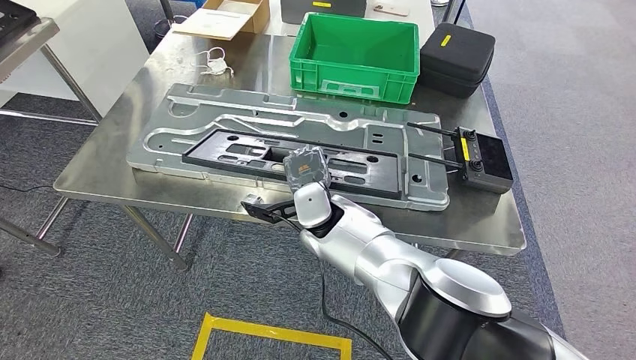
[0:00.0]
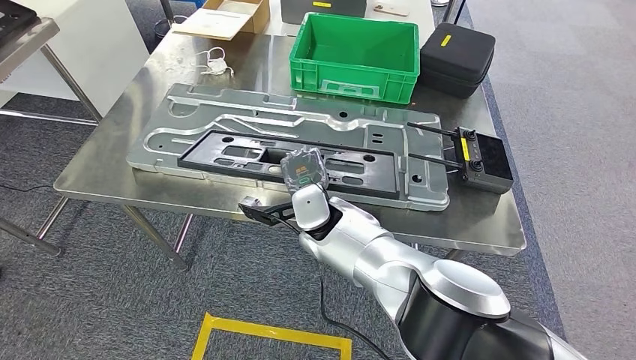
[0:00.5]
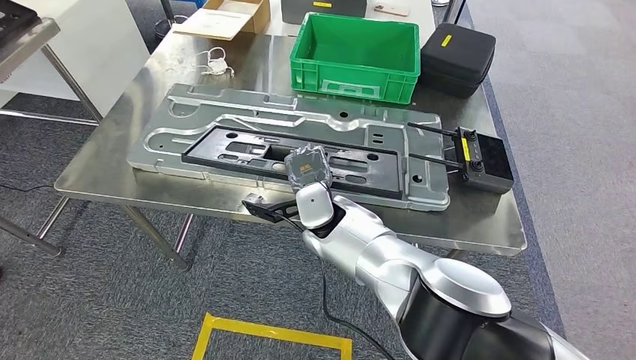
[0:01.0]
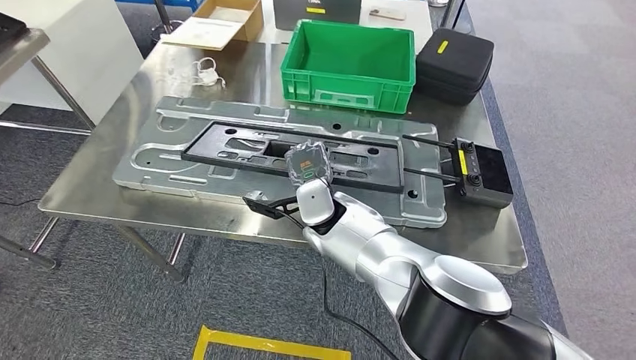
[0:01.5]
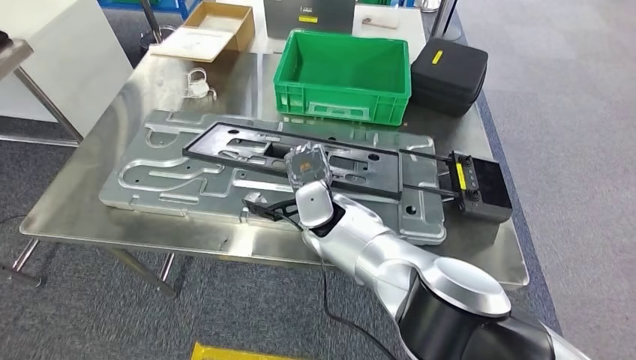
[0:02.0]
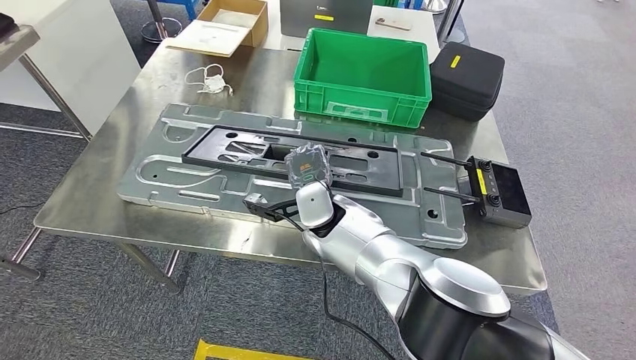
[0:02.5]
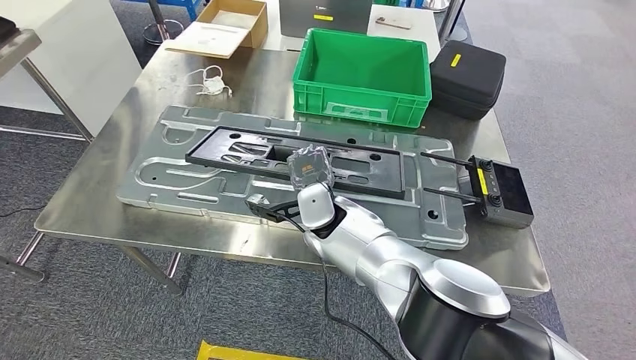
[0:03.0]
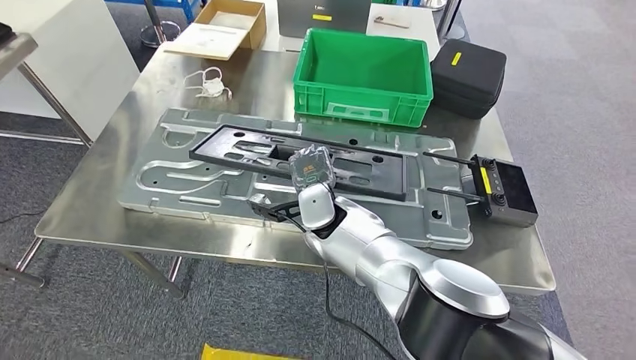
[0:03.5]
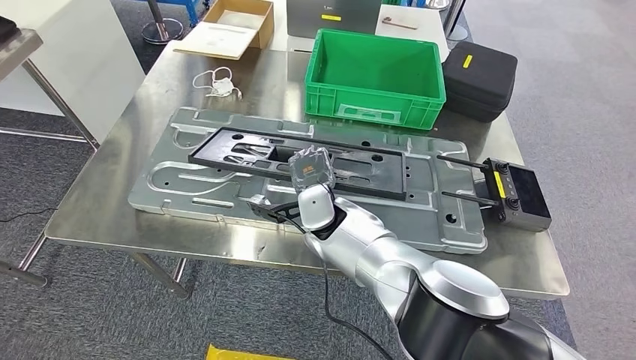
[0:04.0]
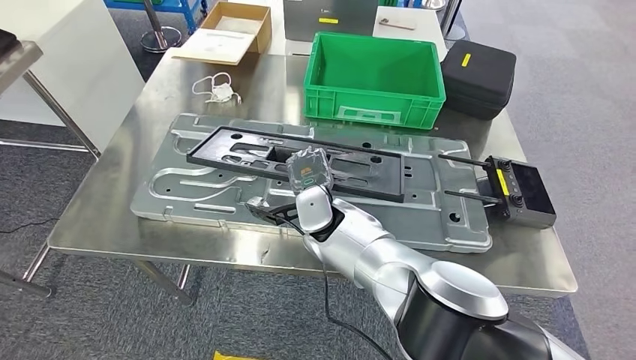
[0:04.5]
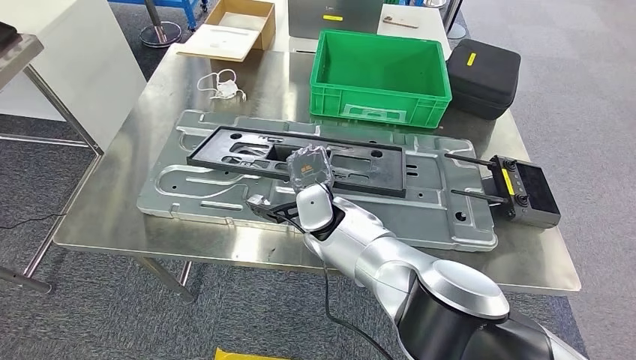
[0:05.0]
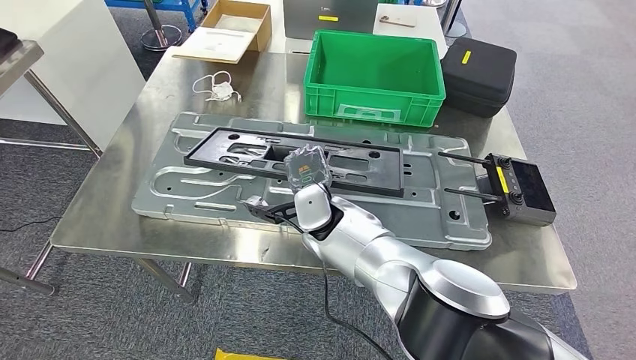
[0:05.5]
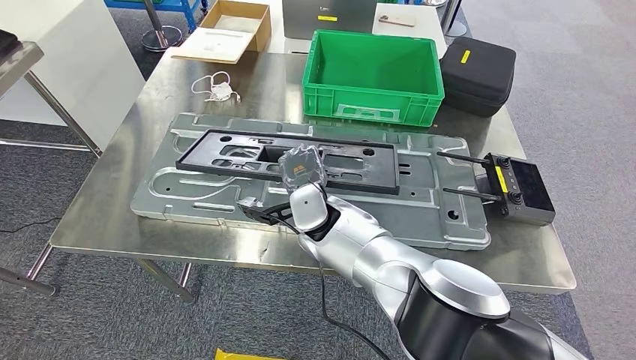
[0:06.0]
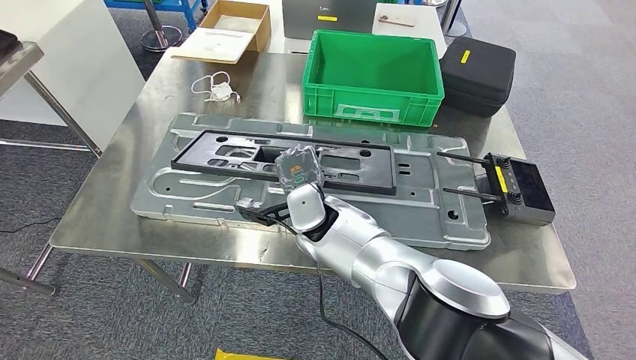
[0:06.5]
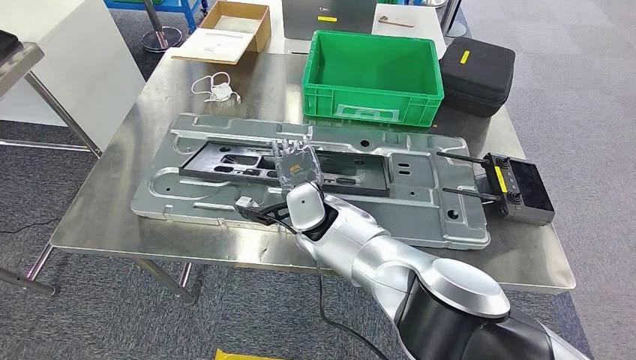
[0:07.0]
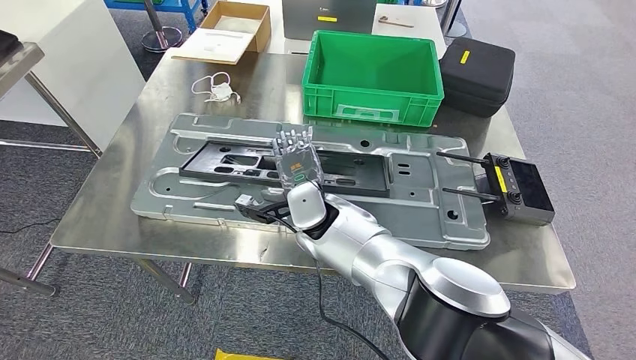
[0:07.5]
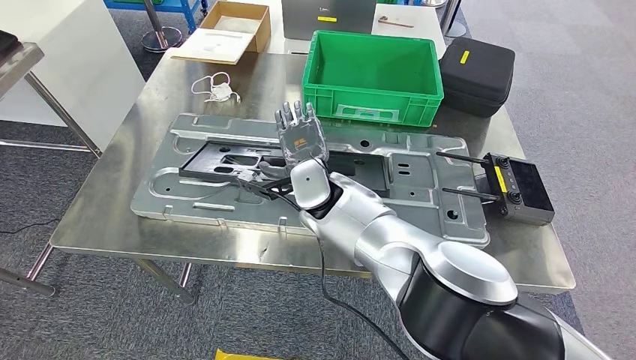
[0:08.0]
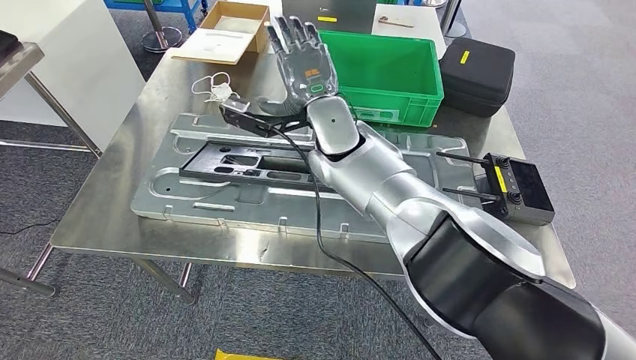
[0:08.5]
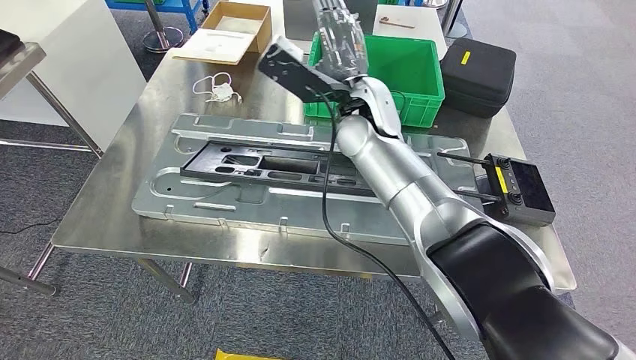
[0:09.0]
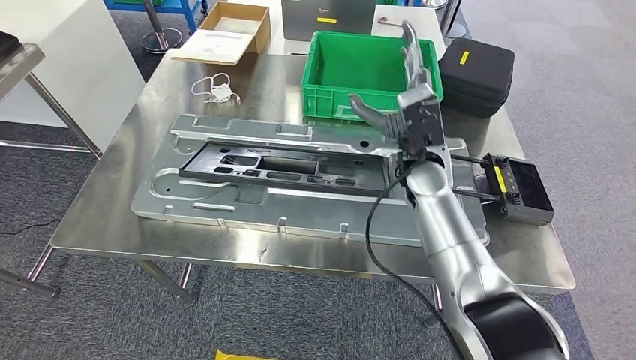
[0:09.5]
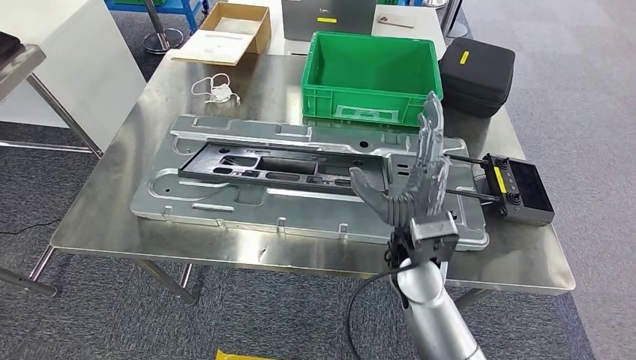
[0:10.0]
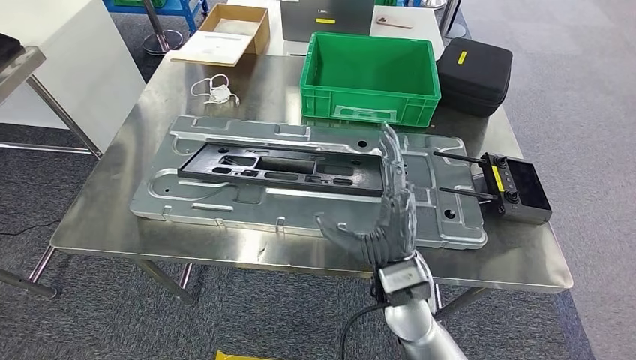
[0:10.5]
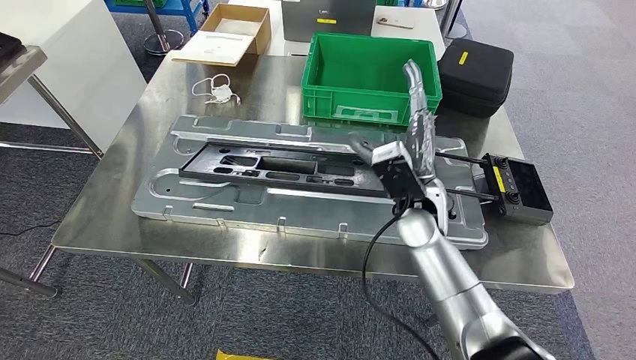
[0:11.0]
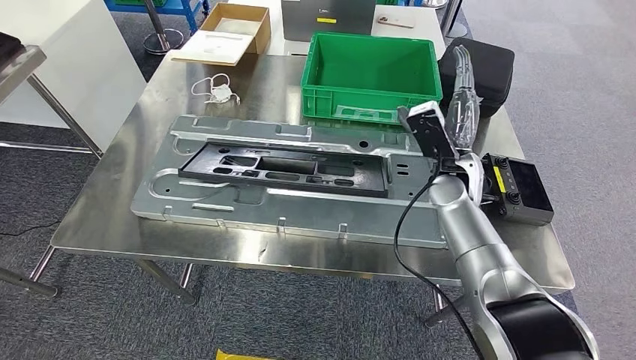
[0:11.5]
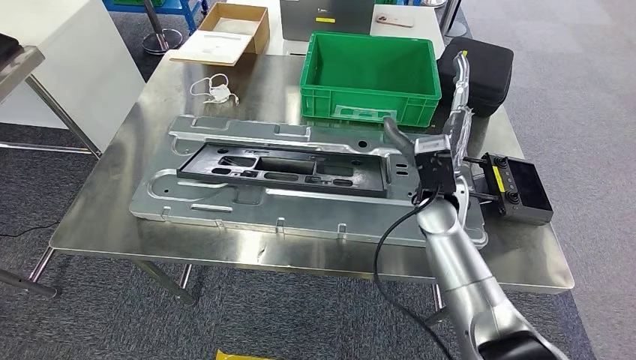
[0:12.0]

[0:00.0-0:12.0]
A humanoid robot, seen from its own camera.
0:06.0 to 0:08.0: There are only small adjustments of the hands.
0:08.0 to 0:10.0: The right hand travels to the right and backward by about 20 cm.
0:10.0 to 0:12.0: The right hand travels forward and to the right by some 10 cm.

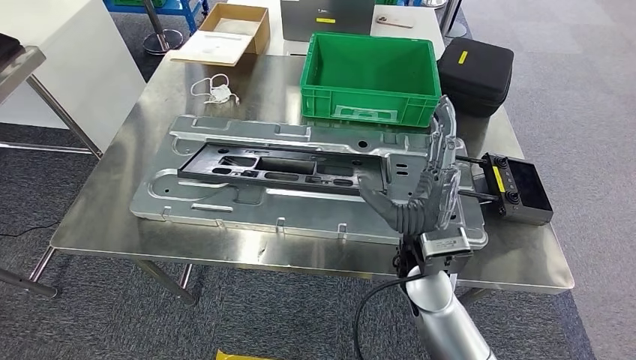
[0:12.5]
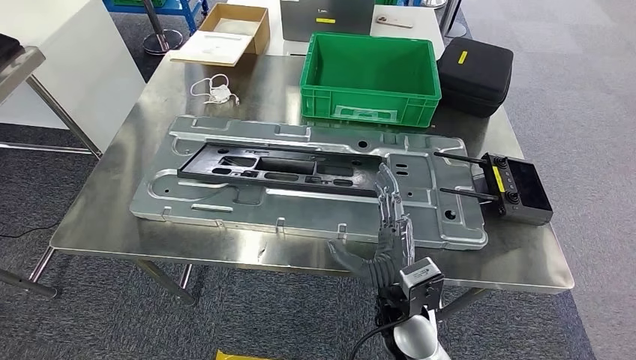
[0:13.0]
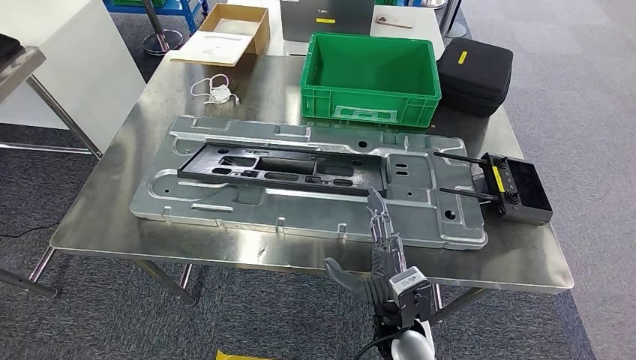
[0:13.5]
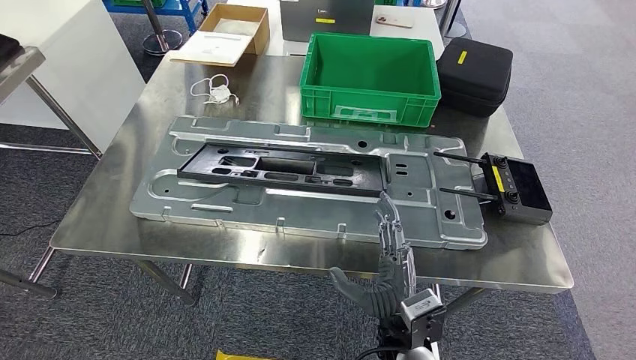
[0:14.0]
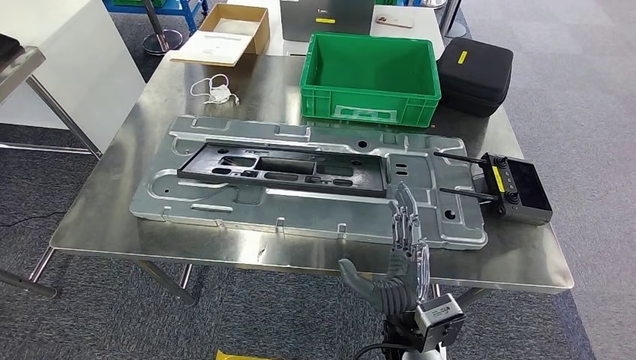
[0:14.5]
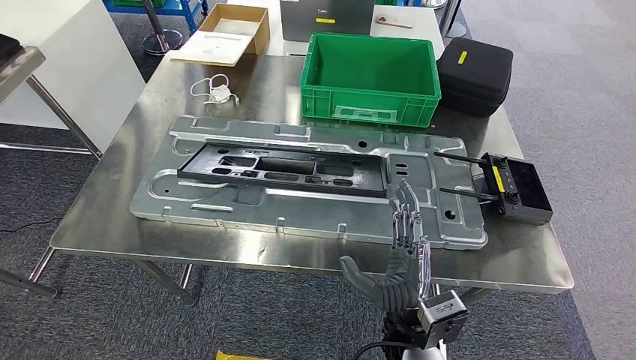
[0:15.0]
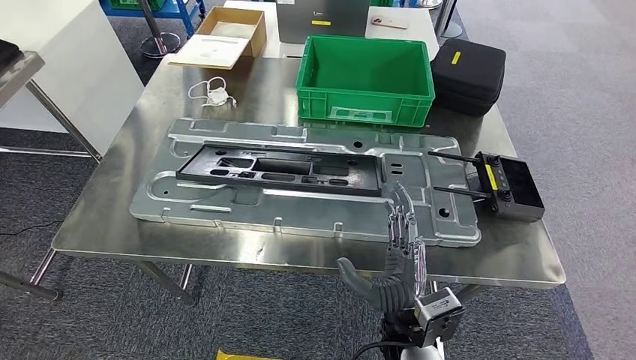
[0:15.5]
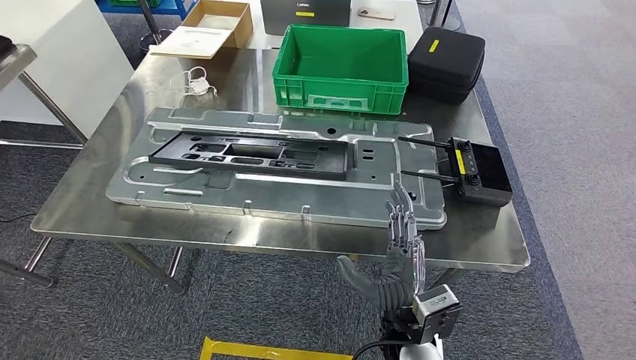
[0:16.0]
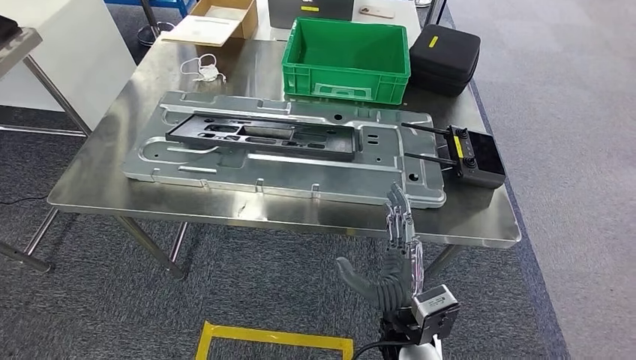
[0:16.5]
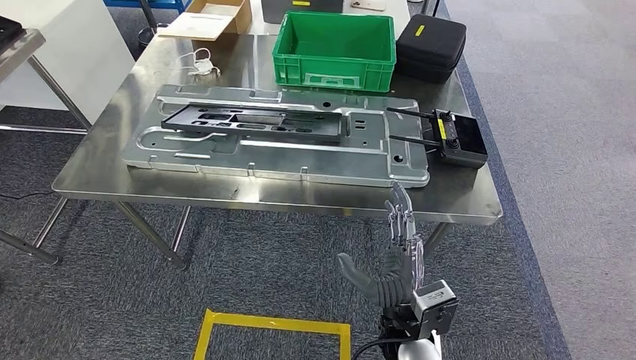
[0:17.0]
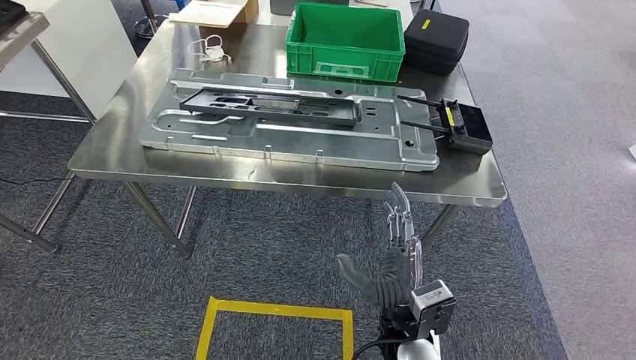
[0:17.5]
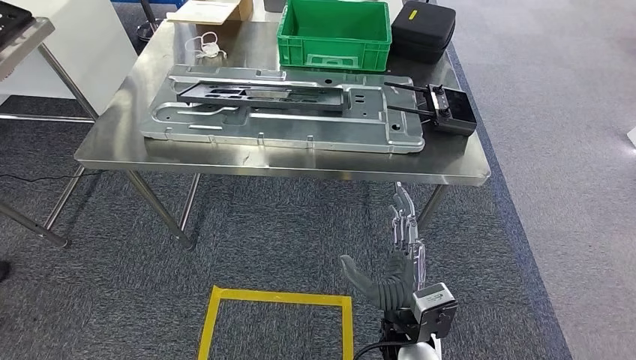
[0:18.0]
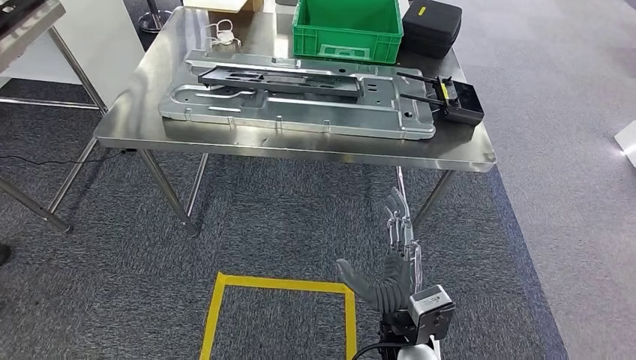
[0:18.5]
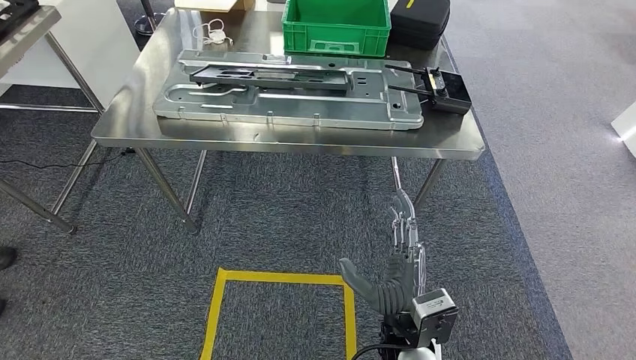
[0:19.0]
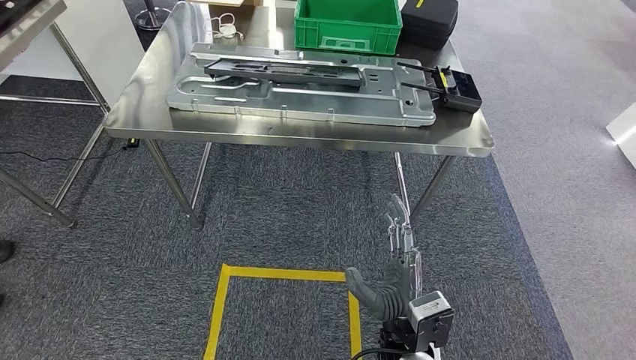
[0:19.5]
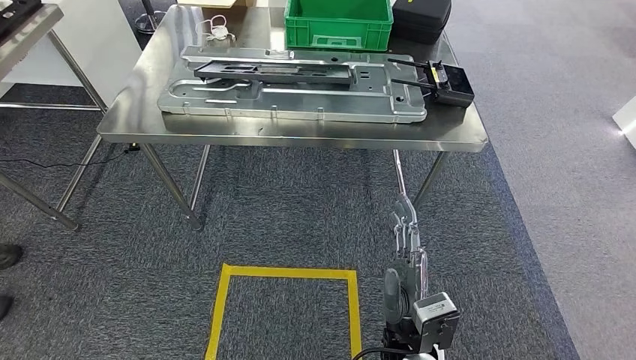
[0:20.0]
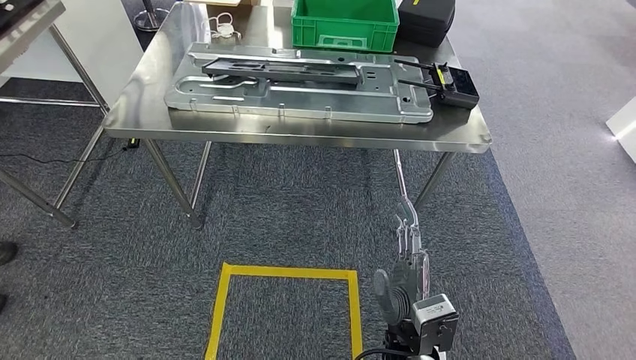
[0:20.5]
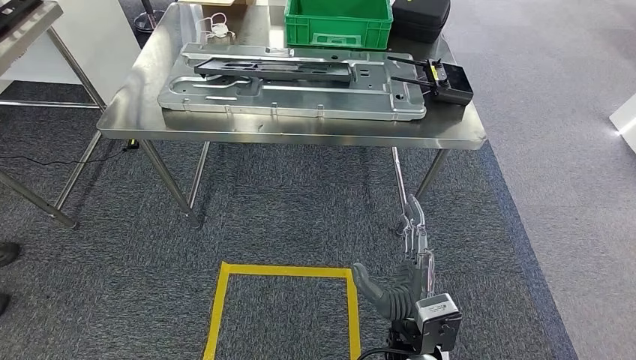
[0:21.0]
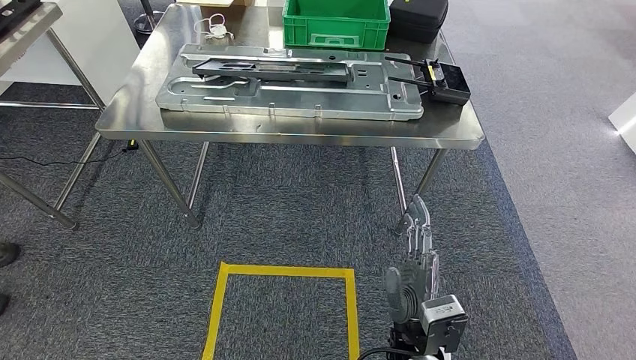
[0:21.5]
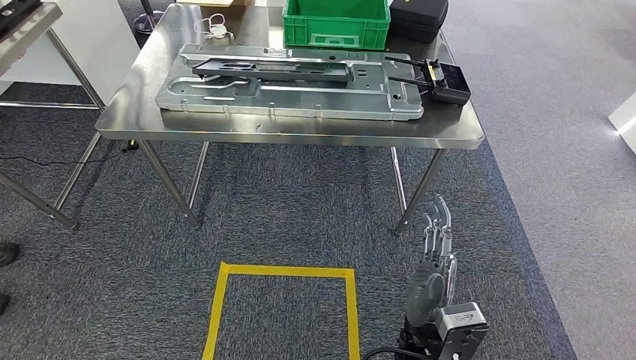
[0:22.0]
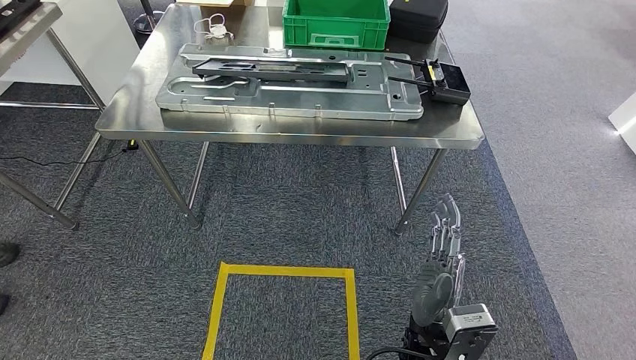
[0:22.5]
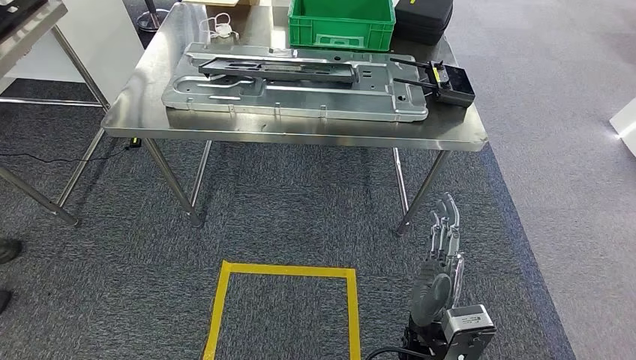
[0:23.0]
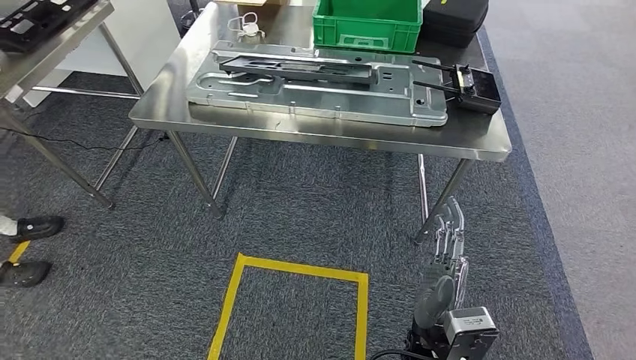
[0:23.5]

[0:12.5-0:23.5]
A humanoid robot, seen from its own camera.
Step, 0:12.5 to 0:14.5: Insert the large material into the corresponding slot on the workbench.
0:12.5 to 0:14.5: The right hand heads backward and downward, covering some 10 cm.
0:20.0 to 0:21.5: The hands stay close to where they were, moving slightly.
